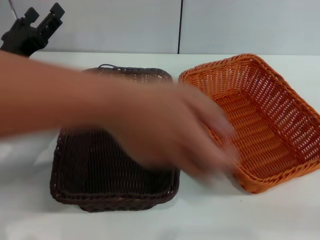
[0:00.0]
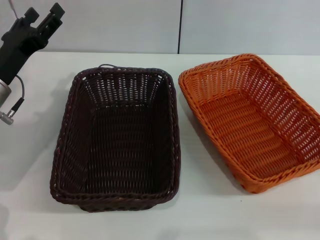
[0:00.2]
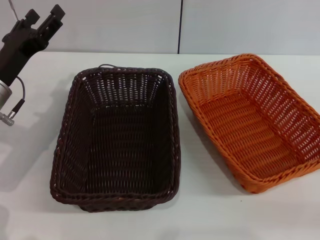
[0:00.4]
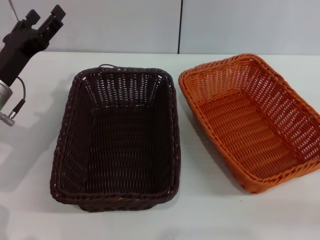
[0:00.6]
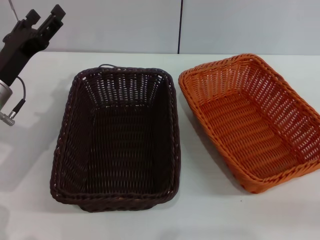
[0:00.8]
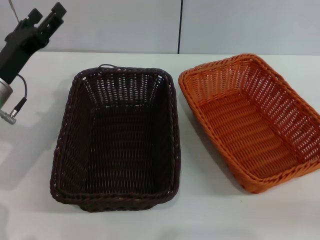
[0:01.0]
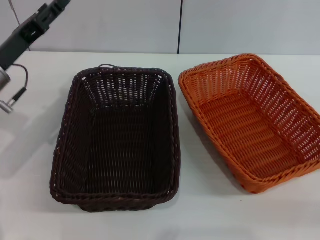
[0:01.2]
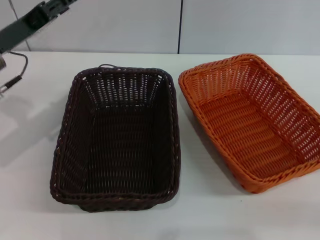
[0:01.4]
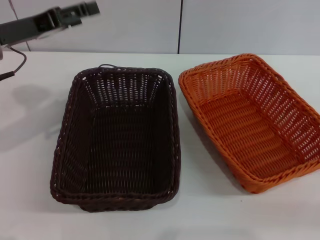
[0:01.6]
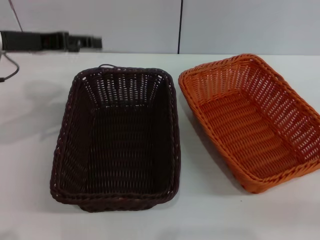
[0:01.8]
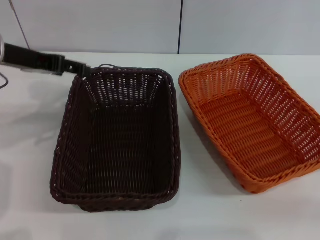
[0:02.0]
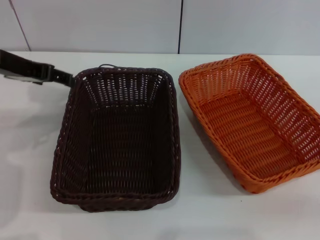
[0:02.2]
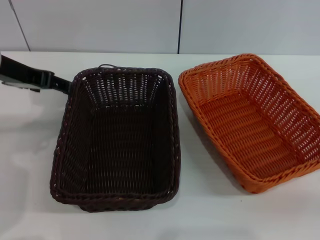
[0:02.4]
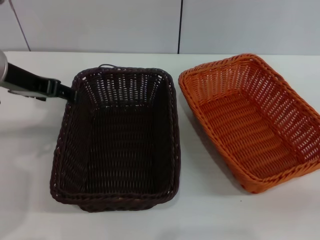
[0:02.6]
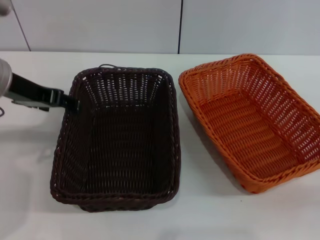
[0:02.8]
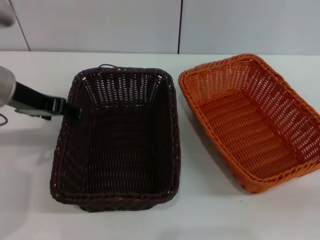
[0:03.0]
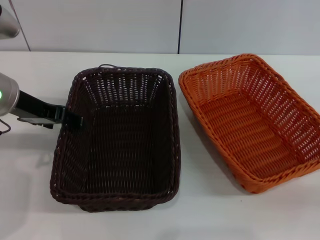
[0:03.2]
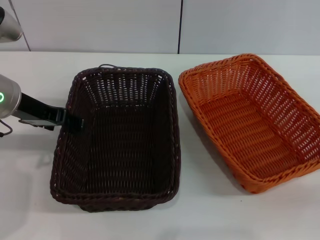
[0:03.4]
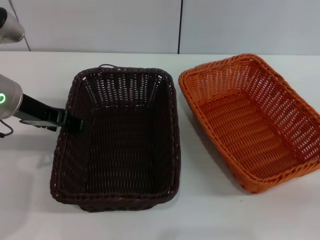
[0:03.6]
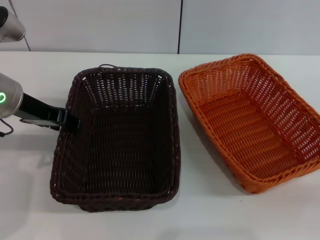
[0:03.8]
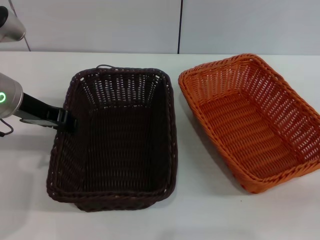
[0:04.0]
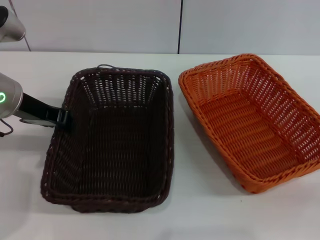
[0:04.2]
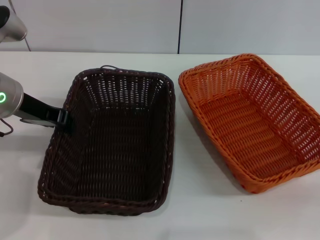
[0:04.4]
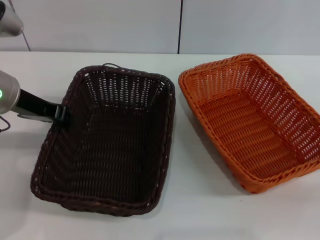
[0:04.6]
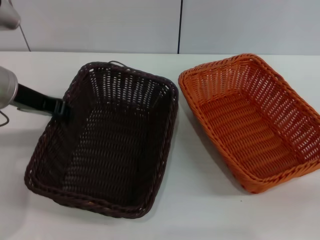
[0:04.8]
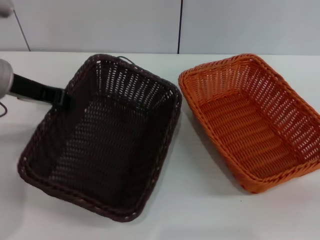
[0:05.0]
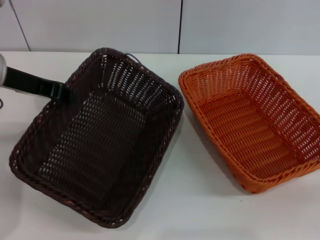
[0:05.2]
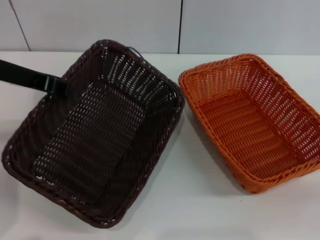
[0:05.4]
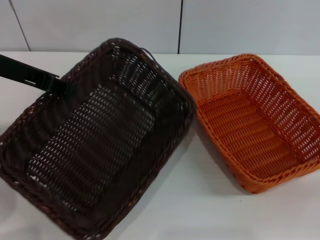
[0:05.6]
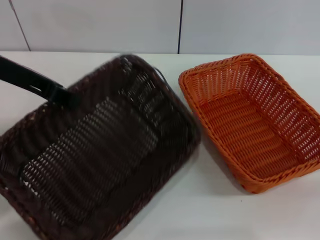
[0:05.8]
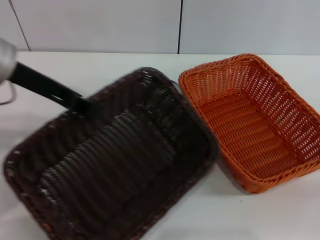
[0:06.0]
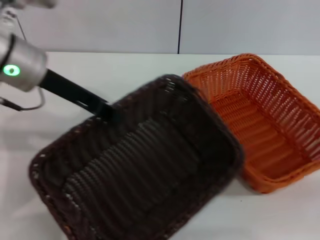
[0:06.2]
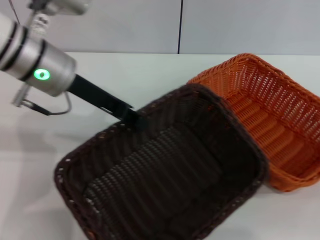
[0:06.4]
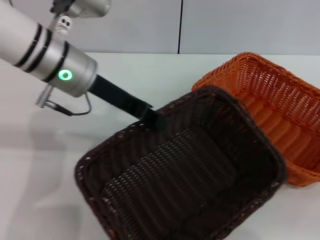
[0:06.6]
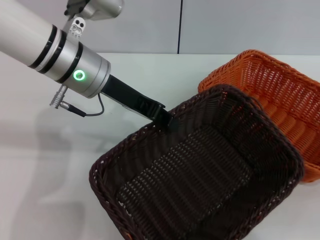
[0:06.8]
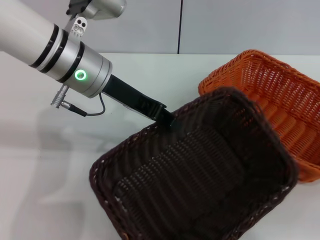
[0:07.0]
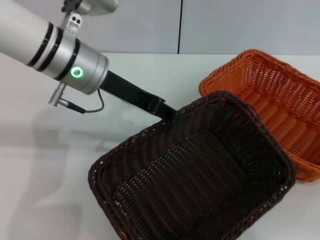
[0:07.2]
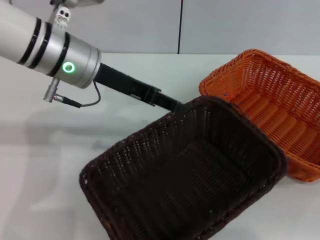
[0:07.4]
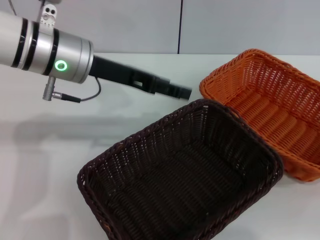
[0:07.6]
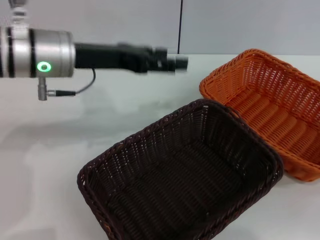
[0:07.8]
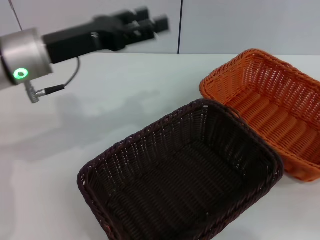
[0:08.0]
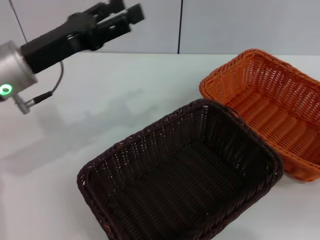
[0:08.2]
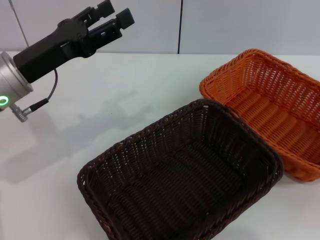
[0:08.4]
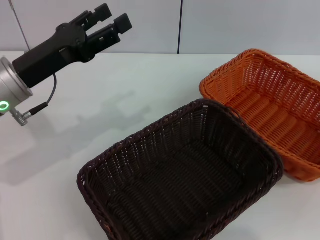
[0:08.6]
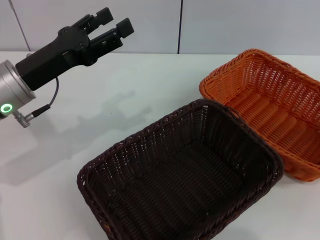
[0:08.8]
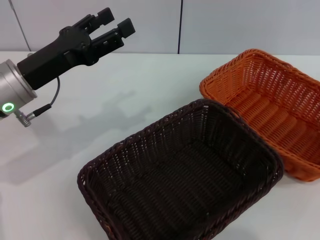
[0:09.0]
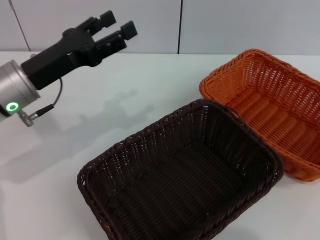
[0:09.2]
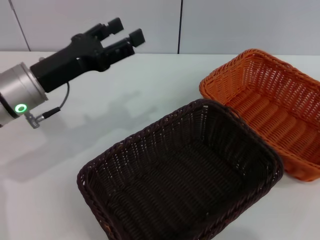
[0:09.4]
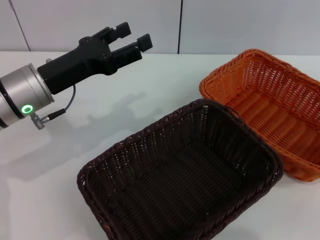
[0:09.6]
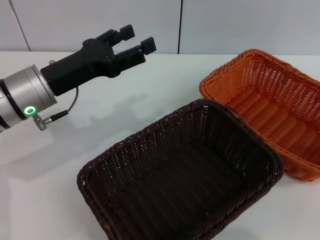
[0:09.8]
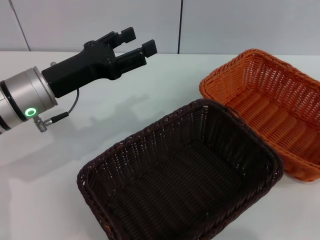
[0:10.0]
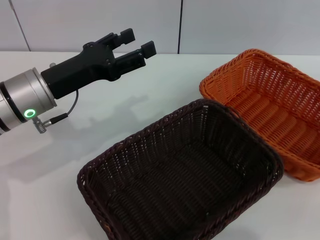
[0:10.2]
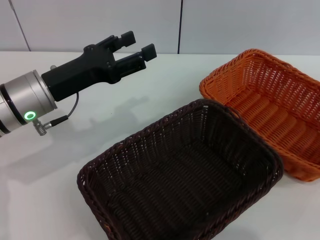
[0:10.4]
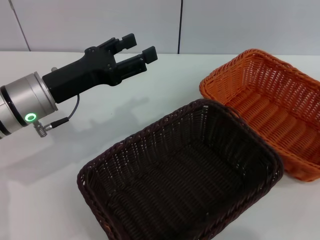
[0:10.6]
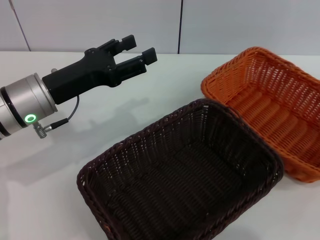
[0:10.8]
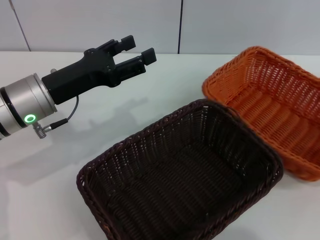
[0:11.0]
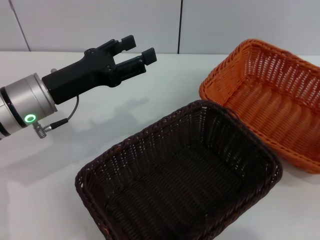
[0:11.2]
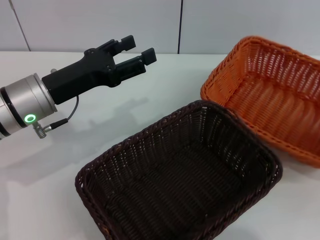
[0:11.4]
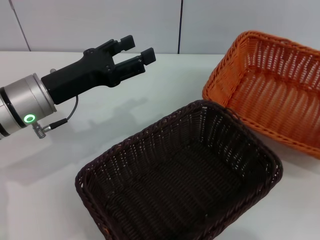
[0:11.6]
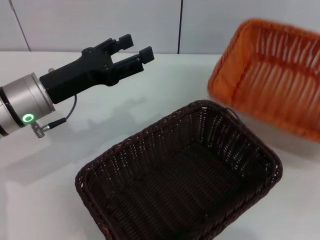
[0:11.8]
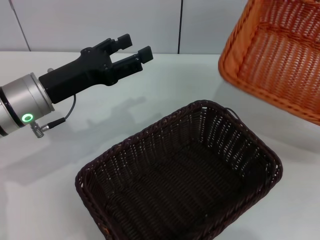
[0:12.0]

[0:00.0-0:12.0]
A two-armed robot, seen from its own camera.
Step, 0:00.0 to 0:05.2: Pick up the dark basket with the left gripper.
Step, 0:05.4 to 0:07.4: Place the dark basket in the center of view with the left gripper.
Step, 0:07.6 to 0:11.8: Pick up the light basket with the right gripper.
0:00.0 to 0:01.6: The left gripper goes about 10 cm upward.
0:03.0 to 0:04.4: The left gripper closes up.
0:04.4 to 0:06.0: The left gripper heads upward, covering approximately 5 cm.
0:06.0 to 0:07.6: The left gripper goes some 10 cm to the right, and opens up.
0:07.6 to 0:09.0: The right gripper is displaced upward by approximately 20 cm; the left gripper travels to the left and downward by approximately 10 cm.
0:09.0 to 0:10.4: The right gripper heads downward, covering some 5 cm.
0:10.4 to 0:12.0: The right gripper closes its fingers.

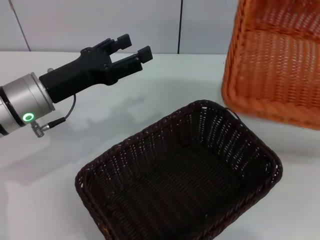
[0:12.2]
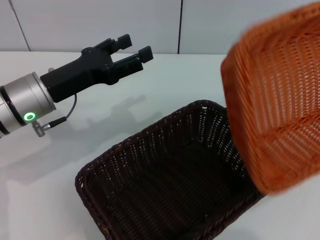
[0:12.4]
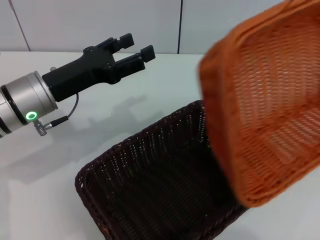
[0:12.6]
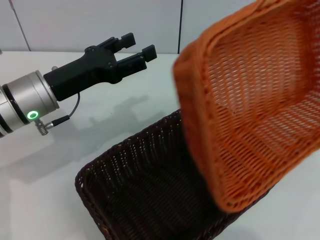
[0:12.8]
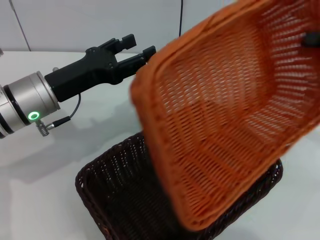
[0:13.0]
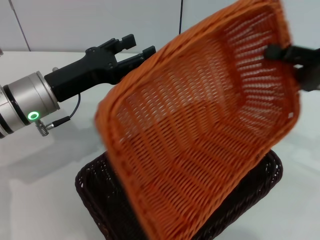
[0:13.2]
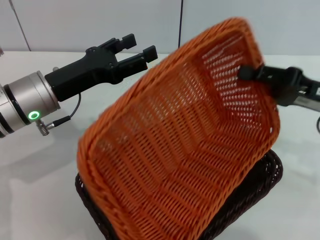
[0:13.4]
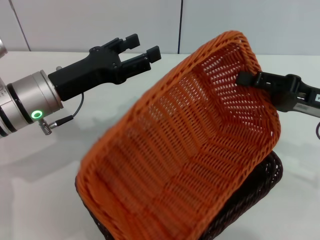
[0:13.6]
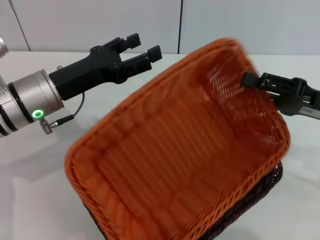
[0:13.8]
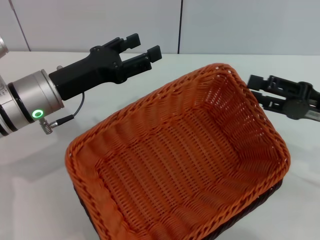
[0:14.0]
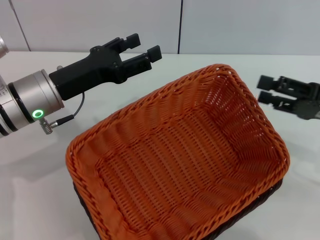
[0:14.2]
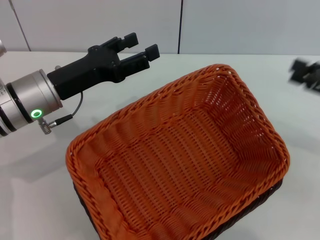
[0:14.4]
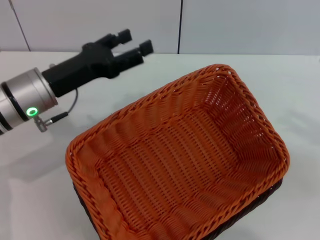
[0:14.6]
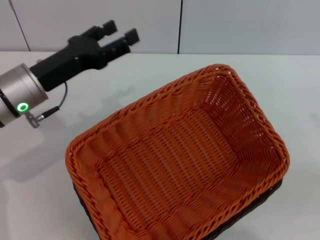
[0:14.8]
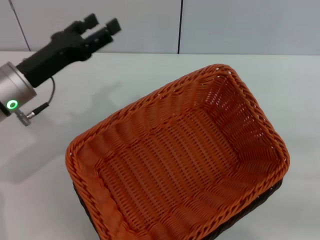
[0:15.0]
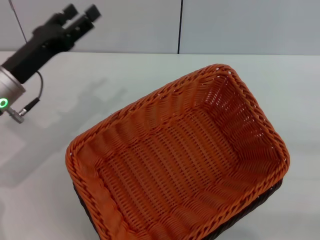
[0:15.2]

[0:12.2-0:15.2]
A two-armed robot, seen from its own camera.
Step, 0:12.2 to 0:14.0: Place the light basket on the dark basket with the right gripper.
0:12.2 to 0:13.8: The right gripper heads to the left, covering some 15 cm.
0:13.8 to 0:15.2: The right gripper is displaced to the right and backward by roughly 15 cm, and opens up.
